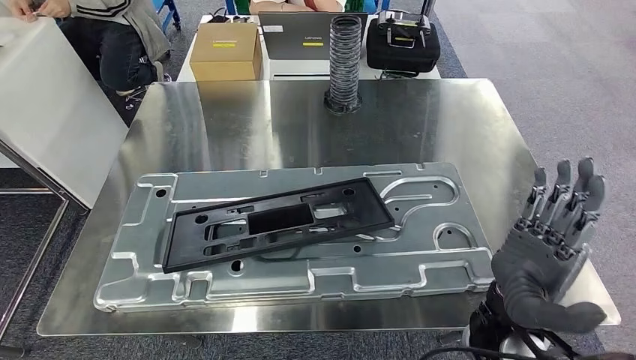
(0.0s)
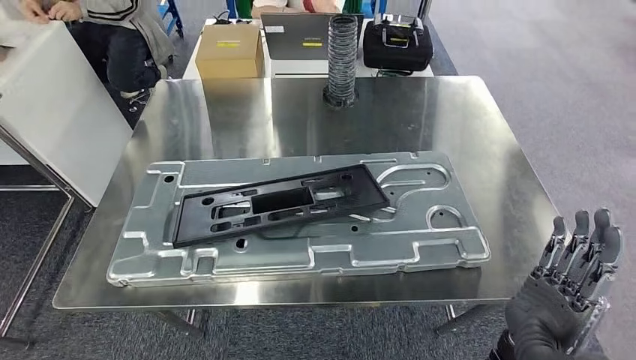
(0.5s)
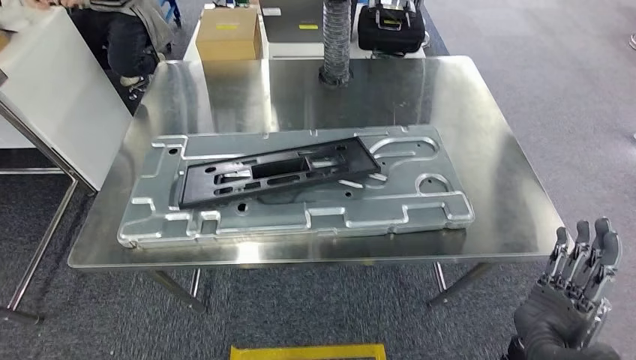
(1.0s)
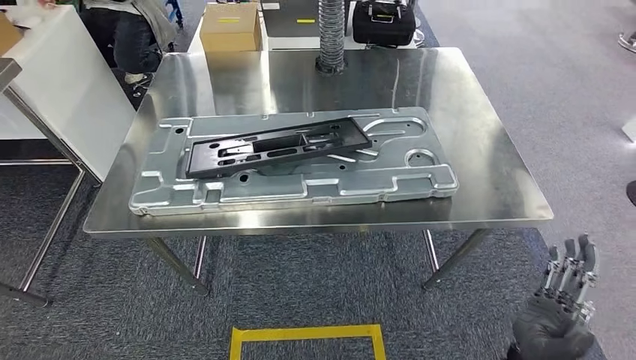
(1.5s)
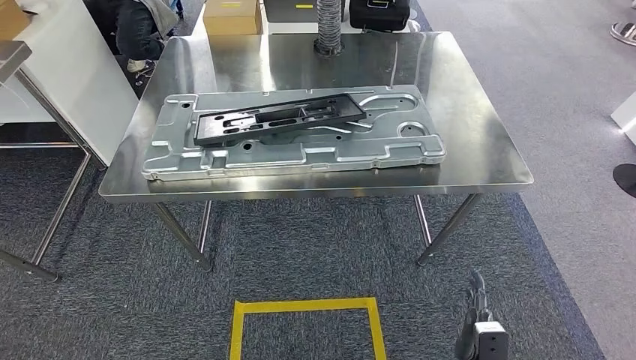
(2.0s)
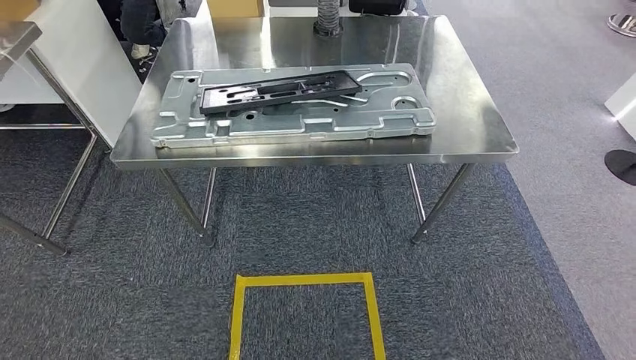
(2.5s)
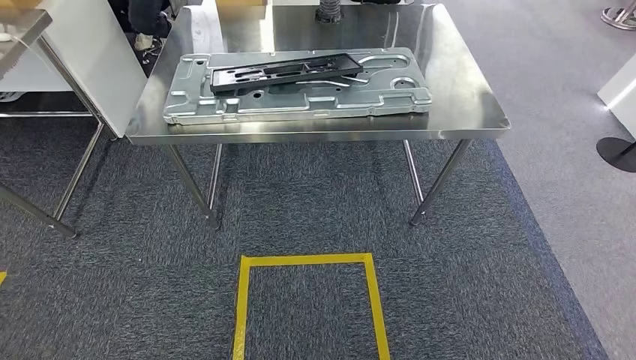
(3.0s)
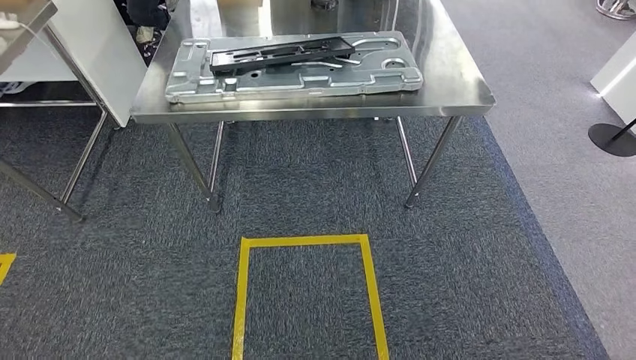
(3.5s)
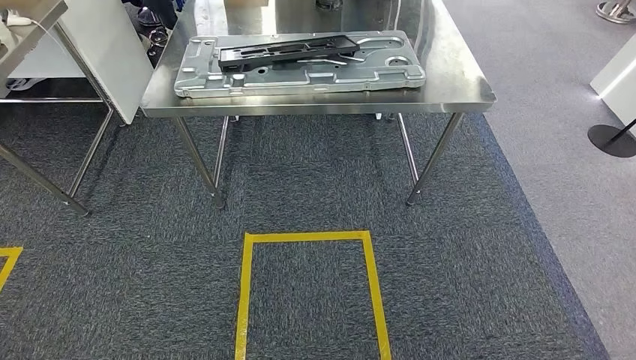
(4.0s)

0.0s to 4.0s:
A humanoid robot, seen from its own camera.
Step, 0.0s to 4.0s: Return to the initial position at the workbench.
